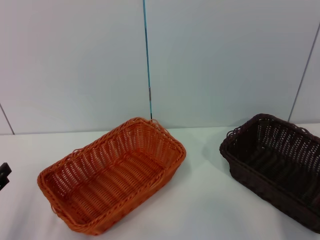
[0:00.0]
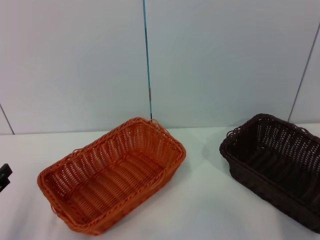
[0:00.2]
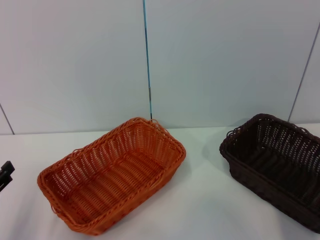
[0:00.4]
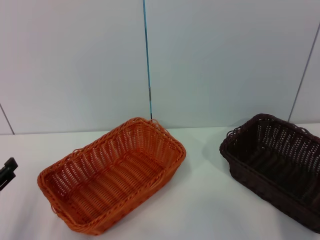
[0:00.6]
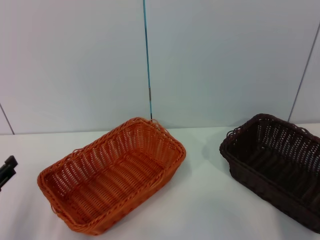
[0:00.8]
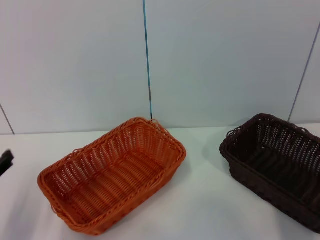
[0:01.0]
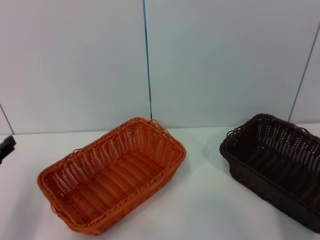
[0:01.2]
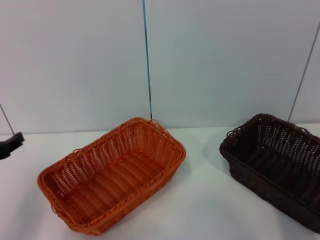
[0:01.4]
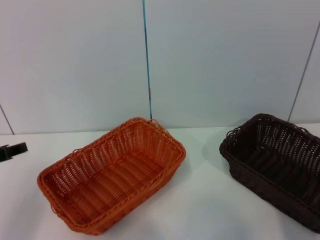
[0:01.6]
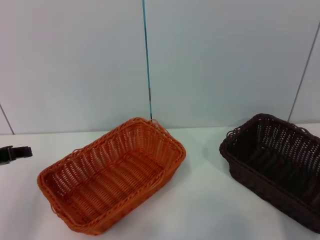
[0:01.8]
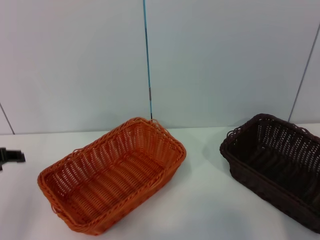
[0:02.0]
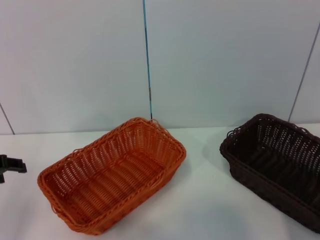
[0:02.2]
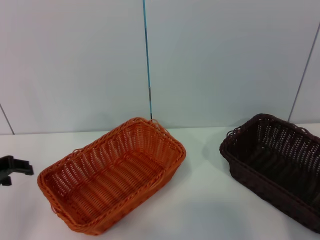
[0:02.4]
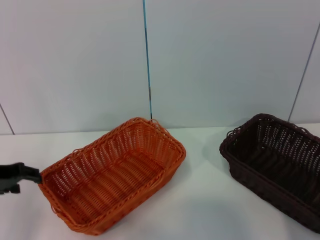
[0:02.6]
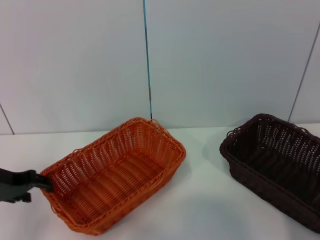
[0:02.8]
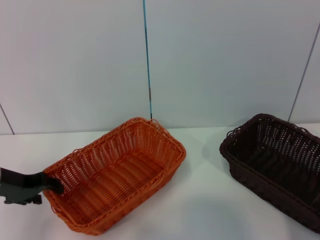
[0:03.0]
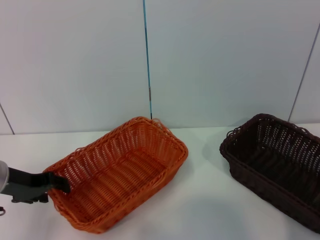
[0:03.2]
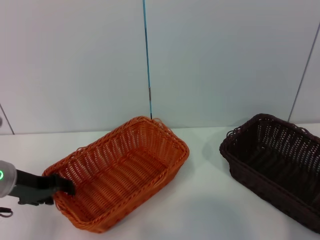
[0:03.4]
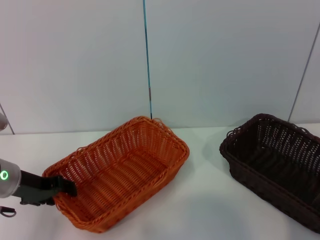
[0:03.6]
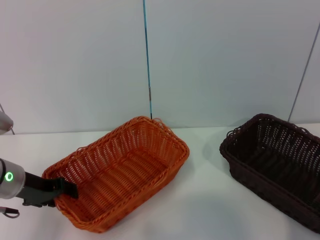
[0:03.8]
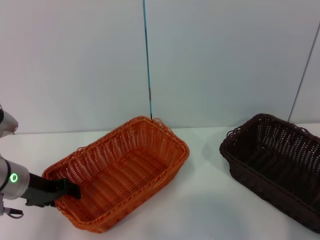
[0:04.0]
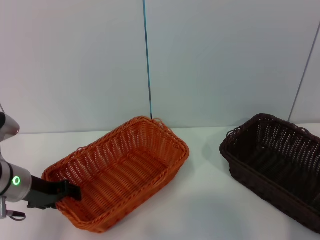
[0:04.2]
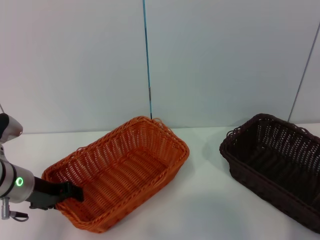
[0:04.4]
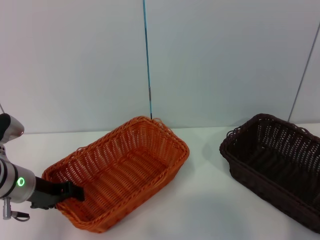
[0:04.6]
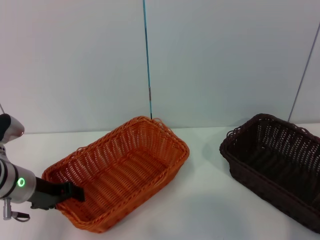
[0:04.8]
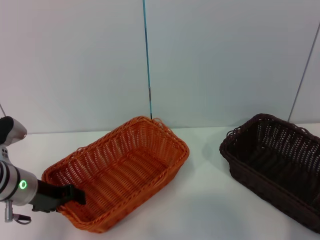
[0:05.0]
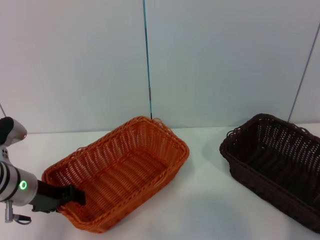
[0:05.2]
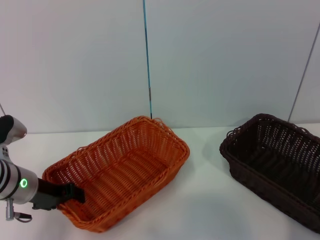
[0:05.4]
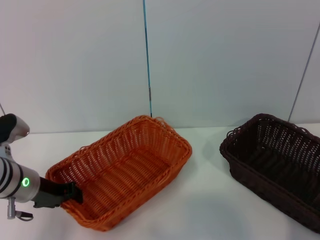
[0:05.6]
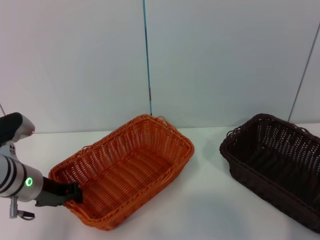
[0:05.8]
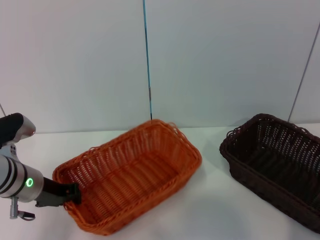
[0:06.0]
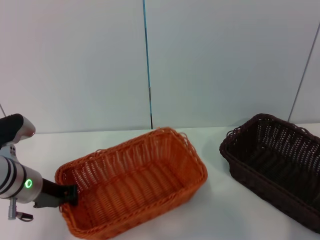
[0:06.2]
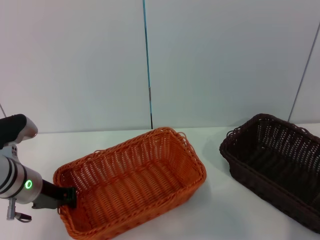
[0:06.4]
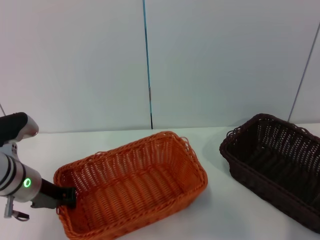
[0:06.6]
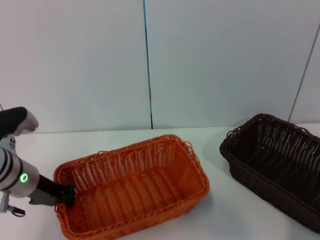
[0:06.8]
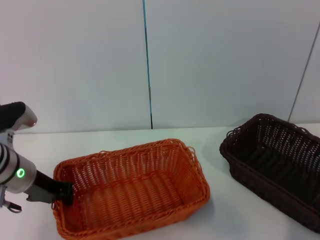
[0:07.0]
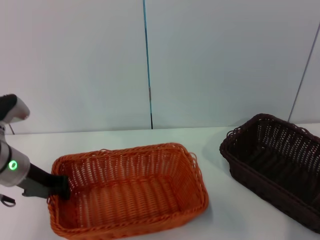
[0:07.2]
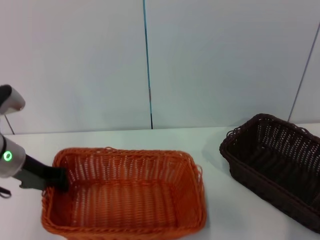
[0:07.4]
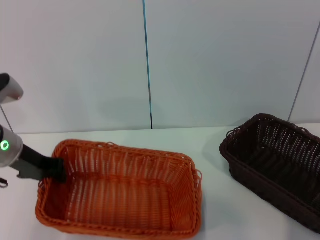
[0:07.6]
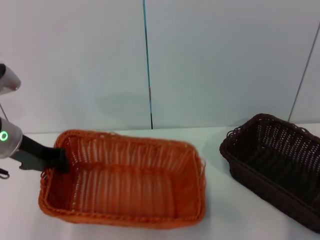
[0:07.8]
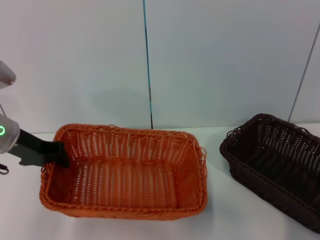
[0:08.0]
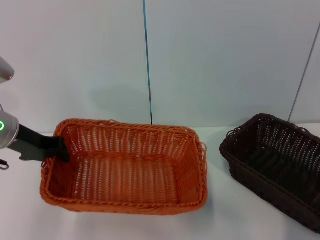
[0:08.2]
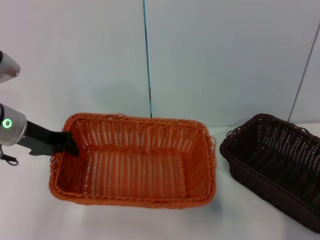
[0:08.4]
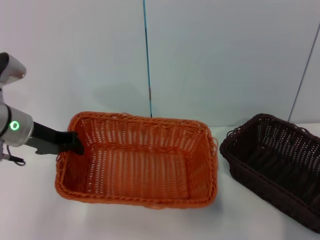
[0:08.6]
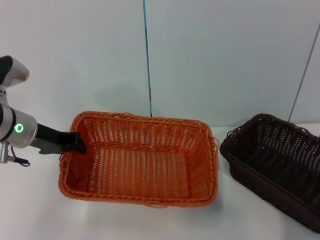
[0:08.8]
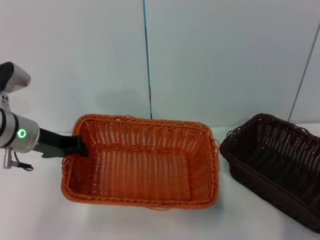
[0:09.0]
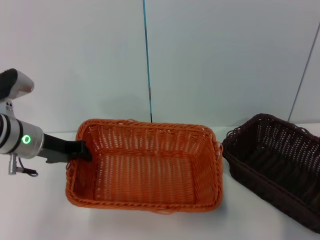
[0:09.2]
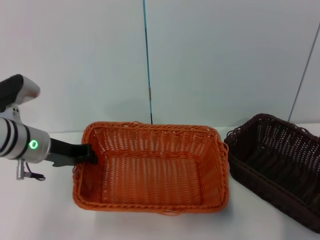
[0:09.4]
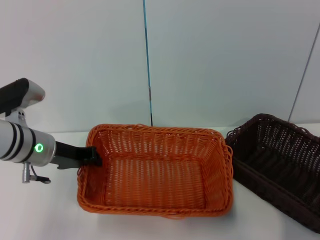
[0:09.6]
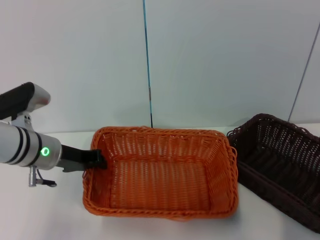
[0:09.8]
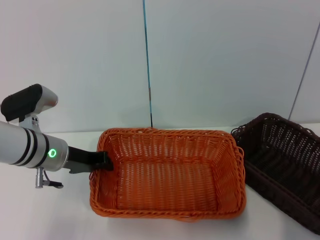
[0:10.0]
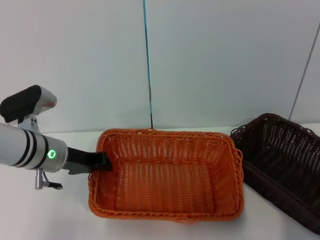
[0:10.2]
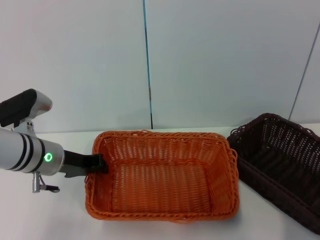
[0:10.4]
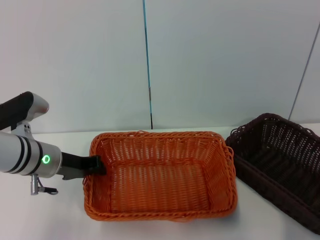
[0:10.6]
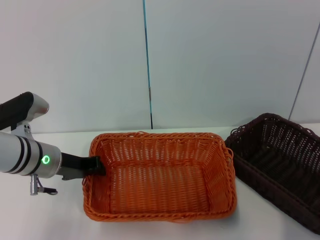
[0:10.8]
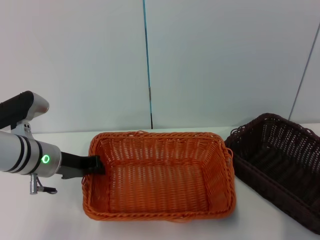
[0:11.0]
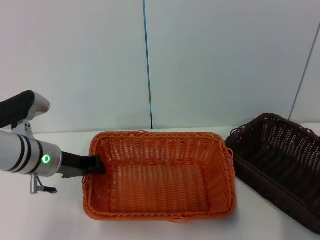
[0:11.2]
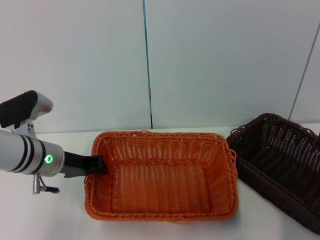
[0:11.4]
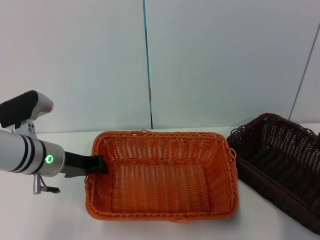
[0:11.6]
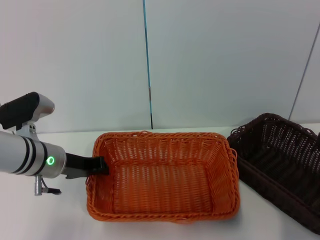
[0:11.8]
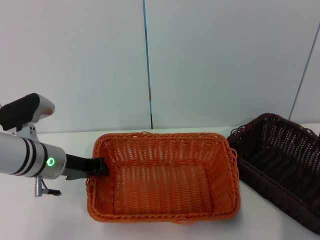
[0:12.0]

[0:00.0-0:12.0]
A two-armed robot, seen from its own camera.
Step, 0:00.0 to 0:07.4: Pick up the light basket with the left gripper.
0:00.0 to 0:01.6: The left gripper goes about 10 cm forward and upward.
0:01.6 to 0:03.0: The left gripper moves approximately 5 cm.
0:03.0 to 0:04.4: The left gripper moves about 5 cm.
0:04.4 to 0:06.0: The left gripper closes up.
0:06.0 to 0:07.6: The left gripper is displaced upward by some 5 cm.
0:09.0 to 0:10.4: The left gripper shifts by roughly 5 cm.
0:10.4 to 0:12.0: Both grippers stay put.

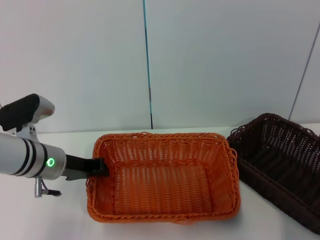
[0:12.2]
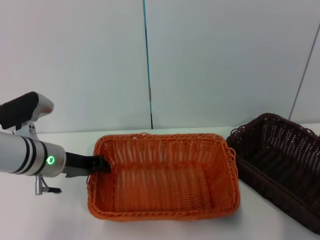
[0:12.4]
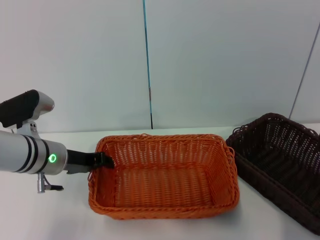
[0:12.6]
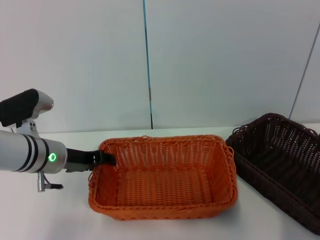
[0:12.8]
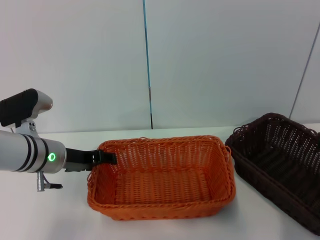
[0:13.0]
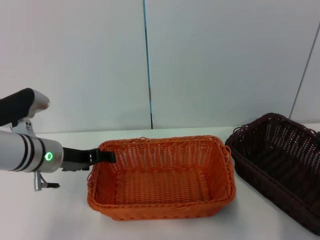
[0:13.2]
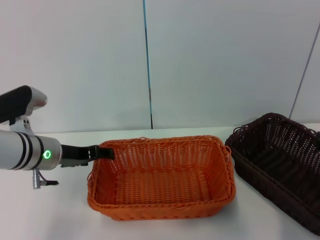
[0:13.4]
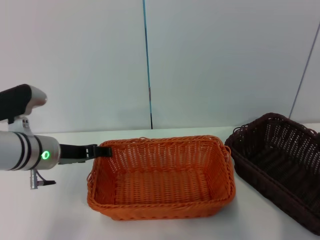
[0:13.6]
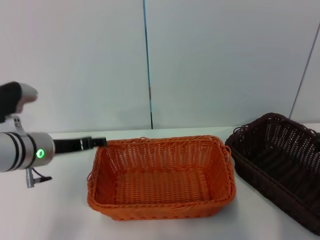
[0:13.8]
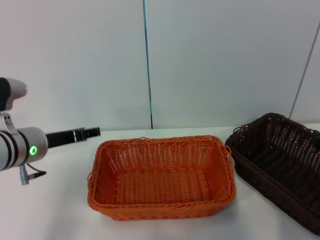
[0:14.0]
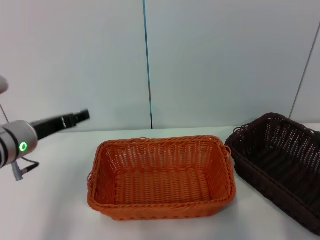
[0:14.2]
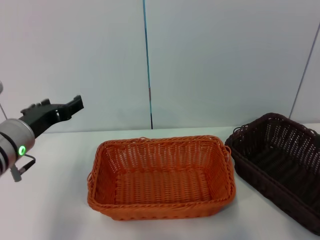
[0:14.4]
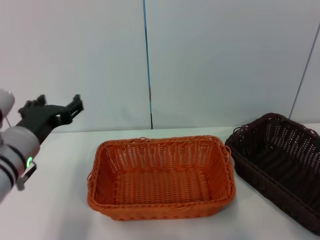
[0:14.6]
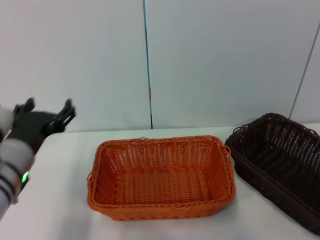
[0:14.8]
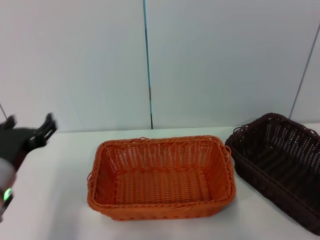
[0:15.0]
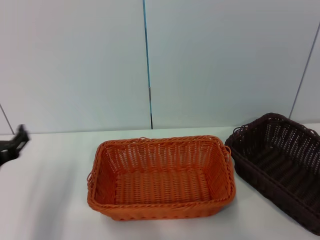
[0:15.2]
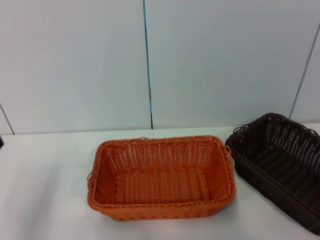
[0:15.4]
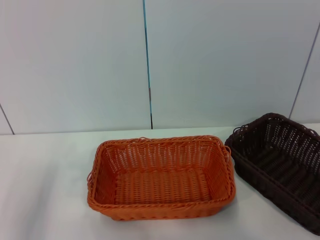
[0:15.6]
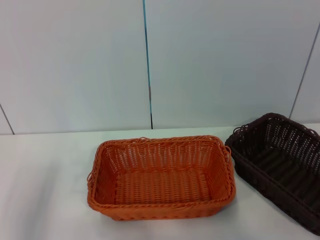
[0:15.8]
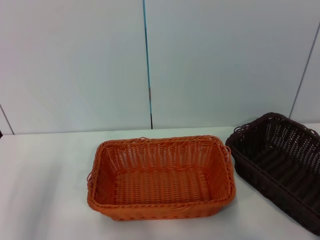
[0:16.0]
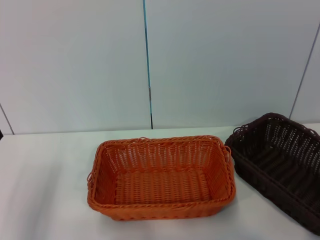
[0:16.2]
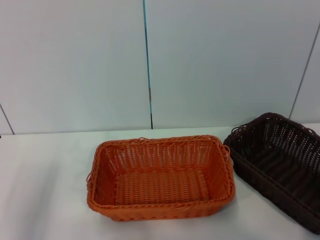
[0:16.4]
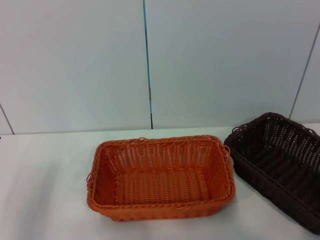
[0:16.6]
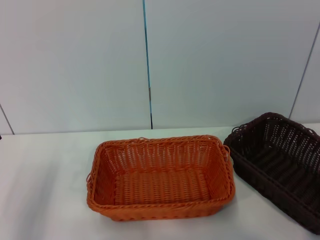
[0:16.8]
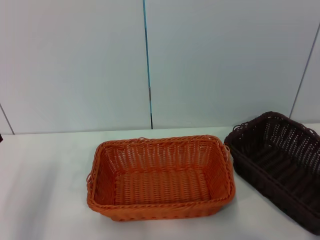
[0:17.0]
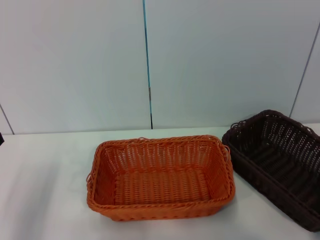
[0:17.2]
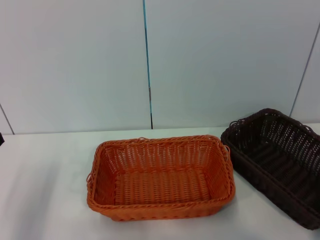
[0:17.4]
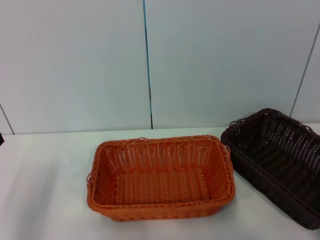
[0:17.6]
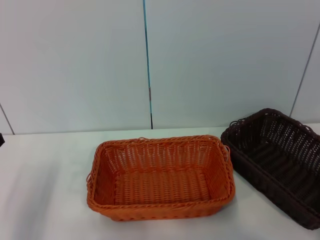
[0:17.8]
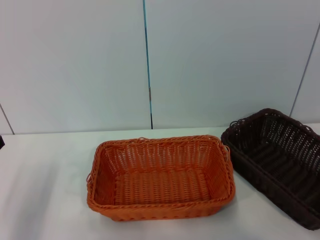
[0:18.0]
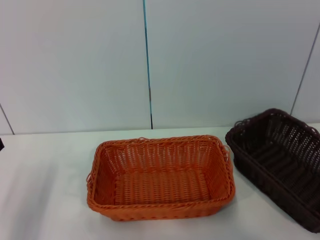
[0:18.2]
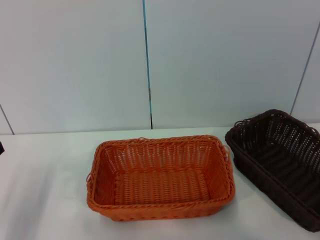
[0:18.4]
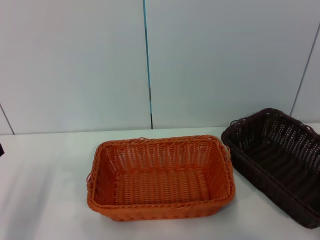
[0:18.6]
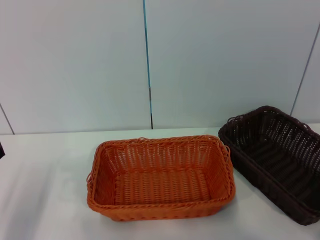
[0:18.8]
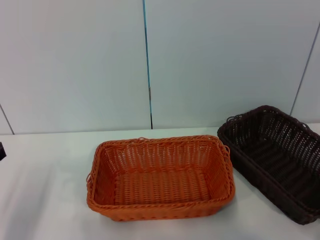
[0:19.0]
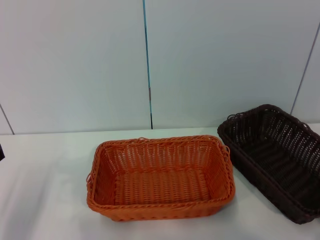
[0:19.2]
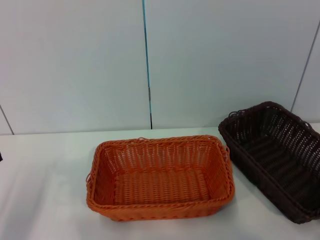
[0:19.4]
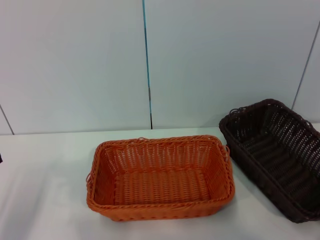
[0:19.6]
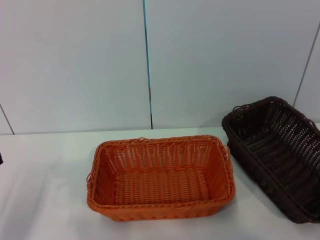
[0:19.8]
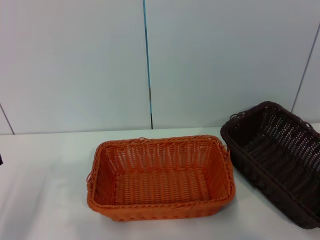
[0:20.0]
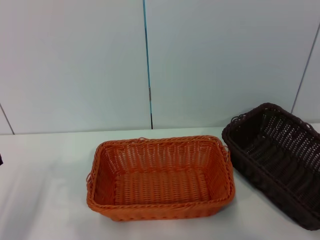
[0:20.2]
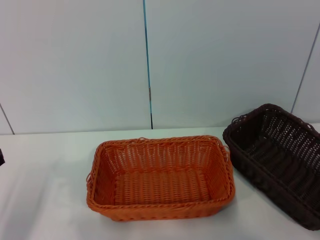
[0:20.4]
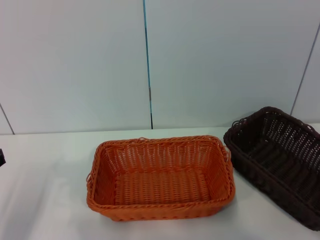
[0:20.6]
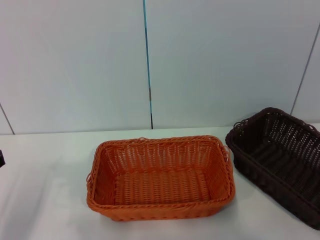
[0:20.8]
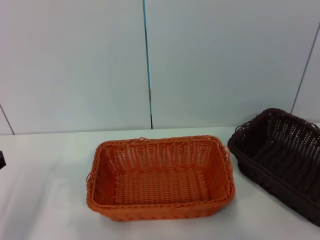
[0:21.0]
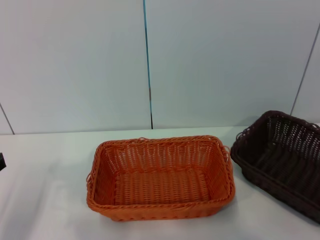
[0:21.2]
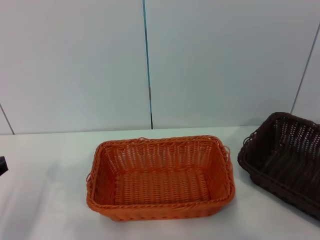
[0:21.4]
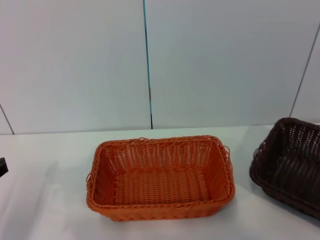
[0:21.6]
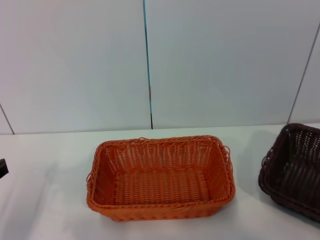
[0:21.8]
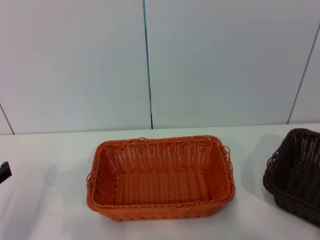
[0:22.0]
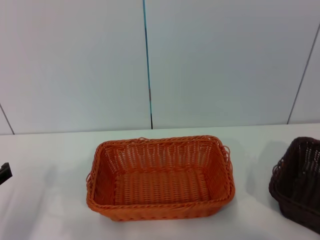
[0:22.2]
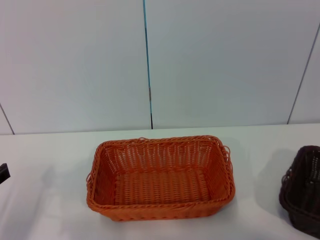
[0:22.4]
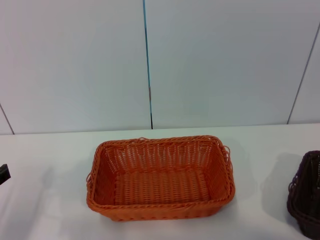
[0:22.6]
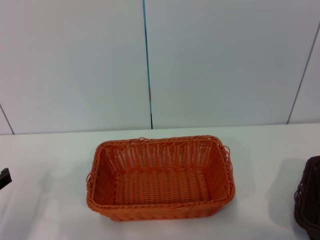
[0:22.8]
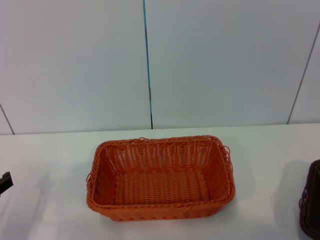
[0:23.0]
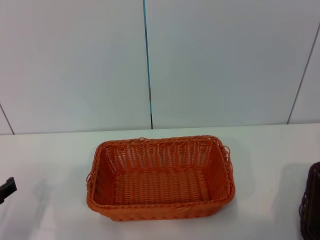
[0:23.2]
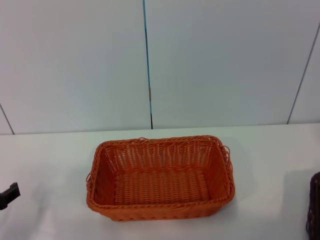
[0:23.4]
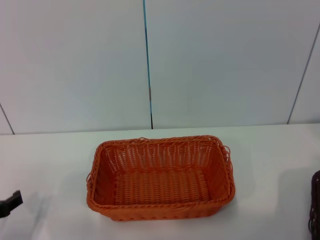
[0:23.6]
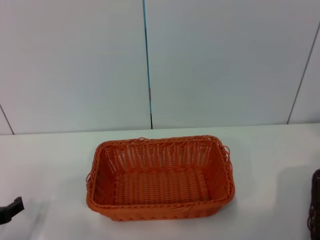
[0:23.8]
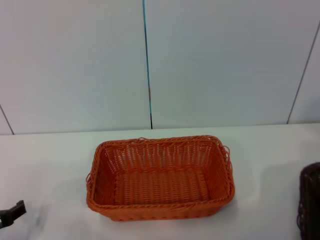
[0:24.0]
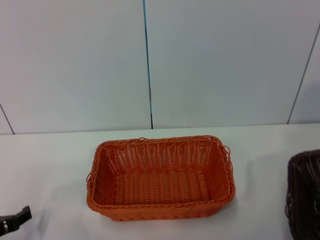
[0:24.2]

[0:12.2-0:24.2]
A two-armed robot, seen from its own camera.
Step, 0:12.8 to 0:20.0: Pick up the dark basket with the right gripper.
0:12.2 to 0:13.8: The left gripper opens its fingers.
0:13.8 to 0:15.2: The left gripper heads backward, covering about 10 cm. Meanwhile the right gripper moves to the right and upward, some 10 cm.
0:16.6 to 0:18.2: The right gripper closes its fingers.
0:18.2 to 0:21.2: The grippers make only small movements.
0:21.2 to 0:22.6: The right gripper is displaced upward and to the right by roughly 10 cm.
0:22.6 to 0:24.2: The right gripper moves upward, about 15 cm; the left gripper moves downward, approximately 5 cm.
